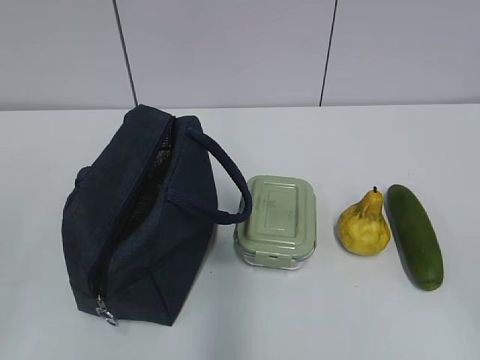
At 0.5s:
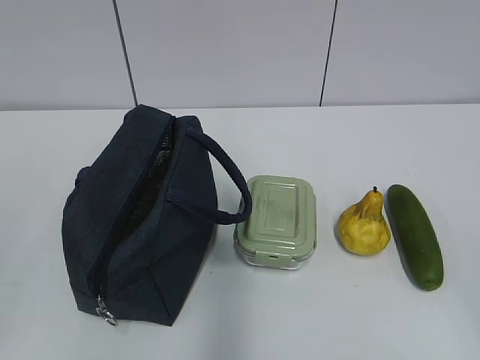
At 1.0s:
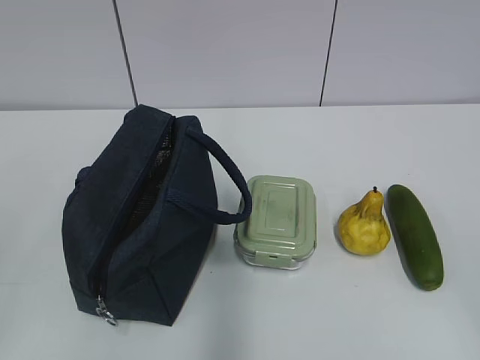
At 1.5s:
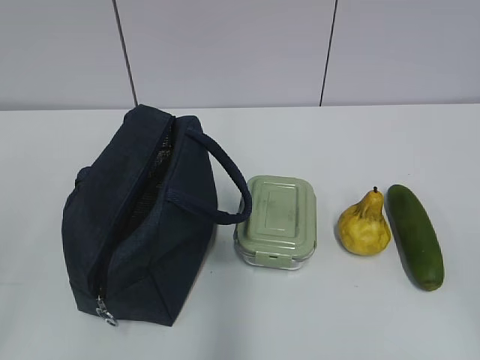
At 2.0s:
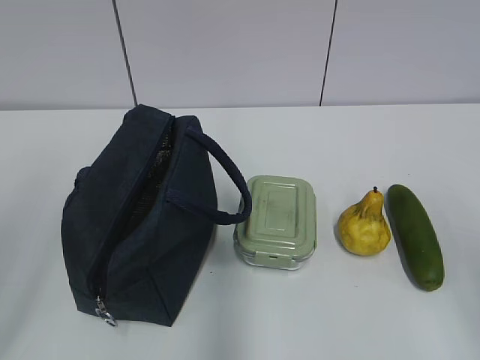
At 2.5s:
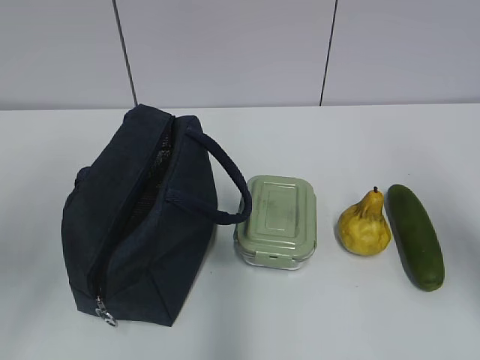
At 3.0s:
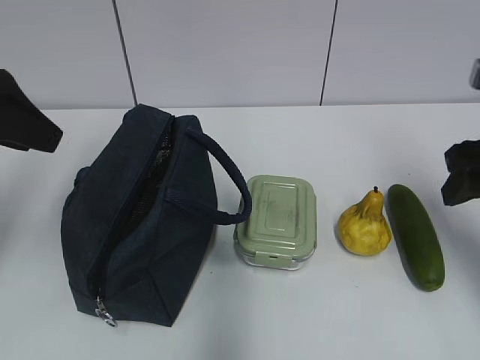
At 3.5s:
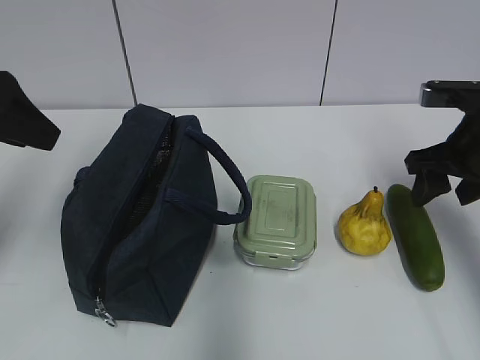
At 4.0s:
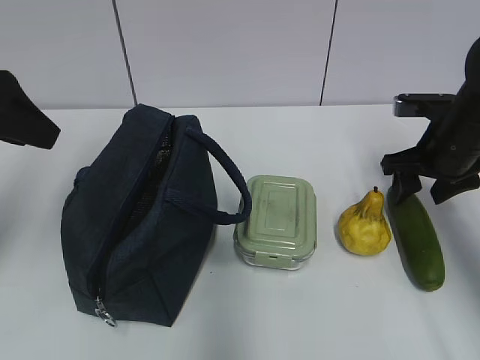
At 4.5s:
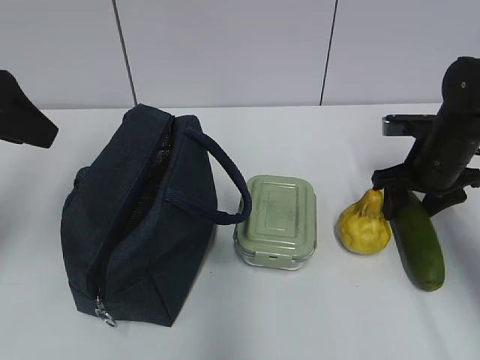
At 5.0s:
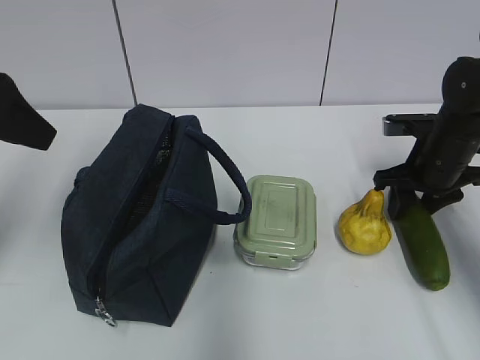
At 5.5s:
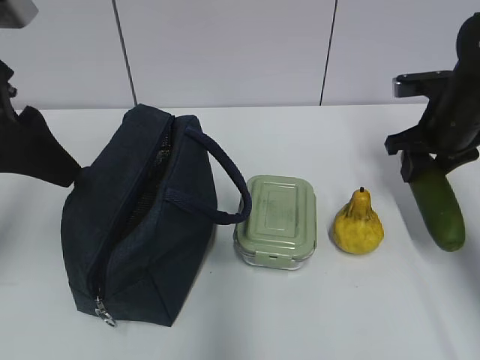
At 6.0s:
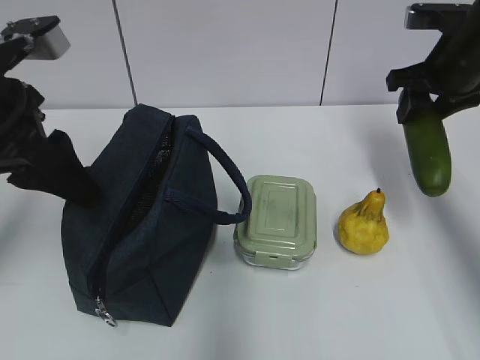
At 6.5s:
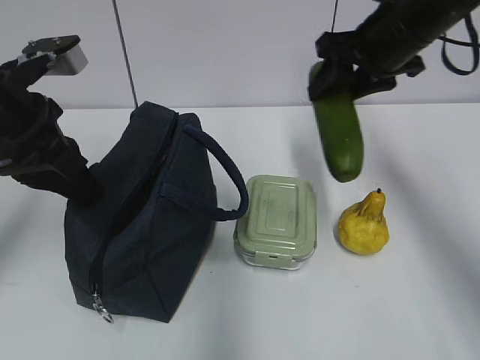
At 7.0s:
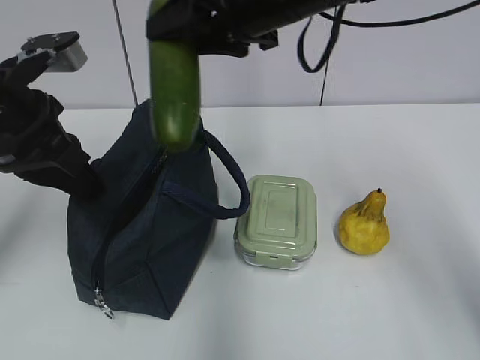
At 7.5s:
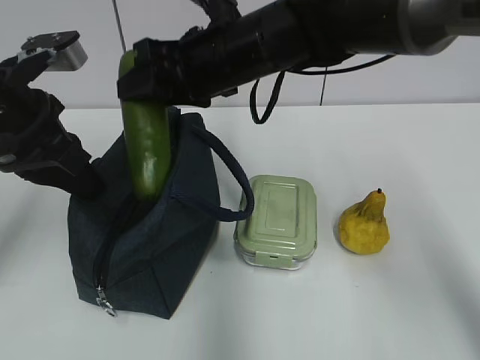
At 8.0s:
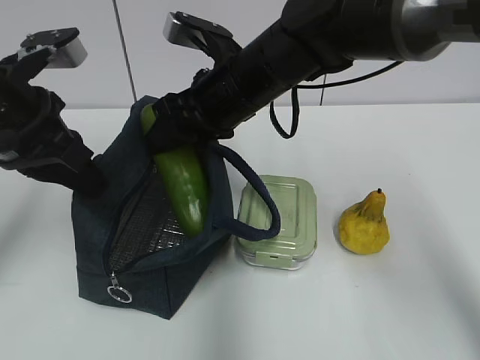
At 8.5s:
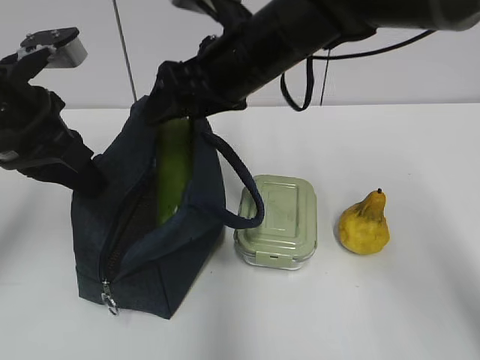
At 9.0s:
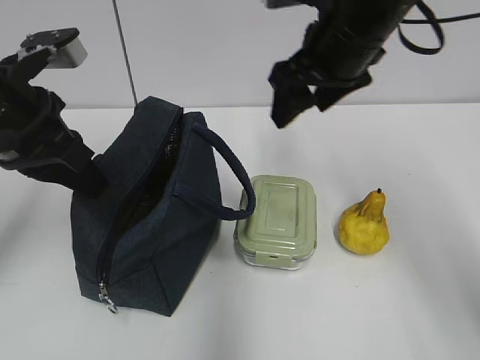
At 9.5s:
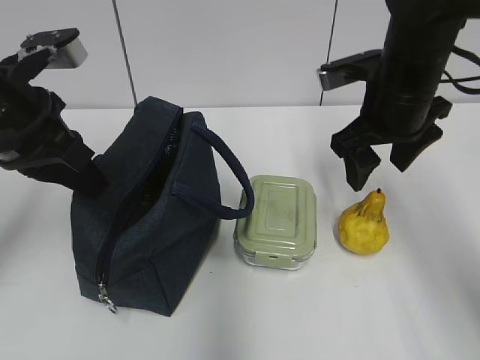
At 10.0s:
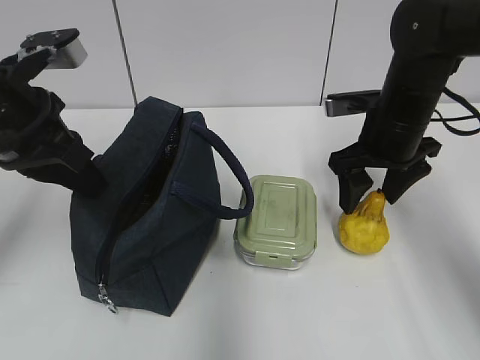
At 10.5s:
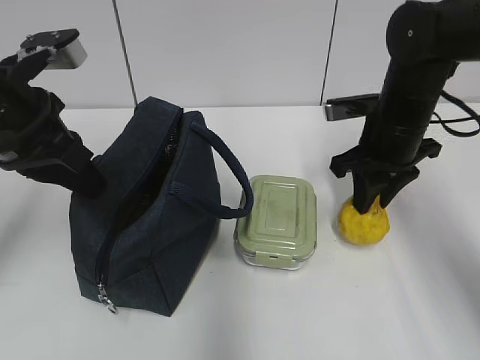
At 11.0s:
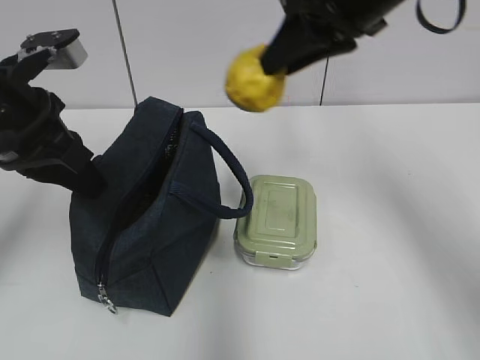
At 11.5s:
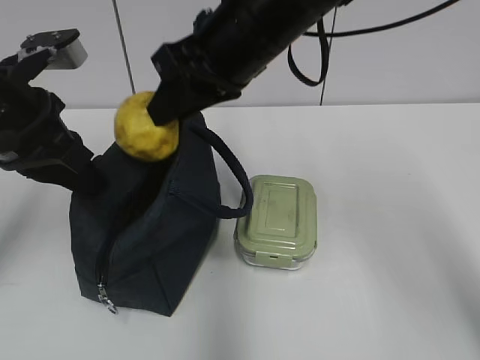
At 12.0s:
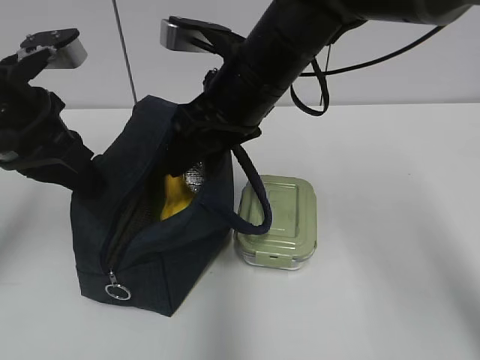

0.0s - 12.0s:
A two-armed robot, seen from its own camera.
Step, 0.0s - 5.0s: Grab the cucumber with your right hand.
Step, 5.5s - 7.0s: Grab the lunch bag with your left hand.
Step, 8.0s - 8.5s: Place it into the bag with your right hand.
Step, 9.0s - 10.0s: Grab the pear with your right hand.
Step, 10.5s - 12.0s: Place it into the bag with your right hand.
2.0s - 4.0s: The right gripper moves forward and downward, approximately 35 cm, while the left gripper is displaced forward by some 15 cm.
4.0s - 6.0s: The right gripper goes about 10 cm upward; the left gripper changes place by approximately 5 cm.
6.0s - 8.0s: The left gripper closes up. The right gripper heads to the left, covering about 25 cm.
8.0s - 10.0s: The right gripper travels to the right by roughly 15 cm.
10.0s - 12.0s: The right gripper moves to the left and upward, approximately 20 cm, and closes, then reopens.

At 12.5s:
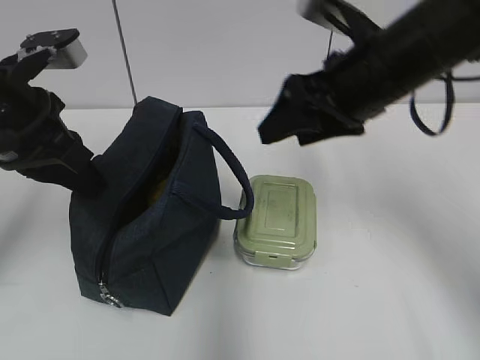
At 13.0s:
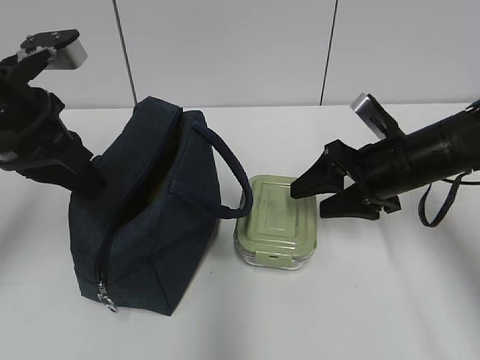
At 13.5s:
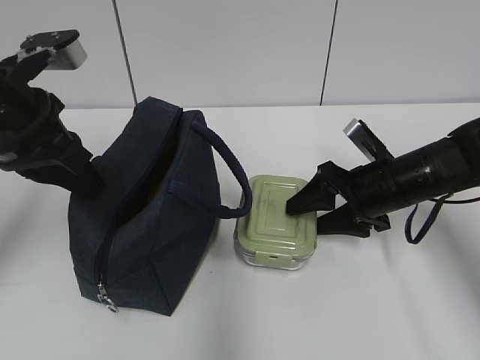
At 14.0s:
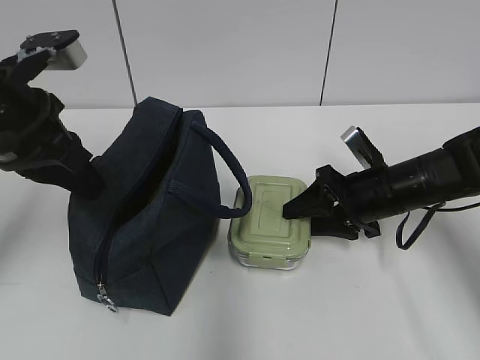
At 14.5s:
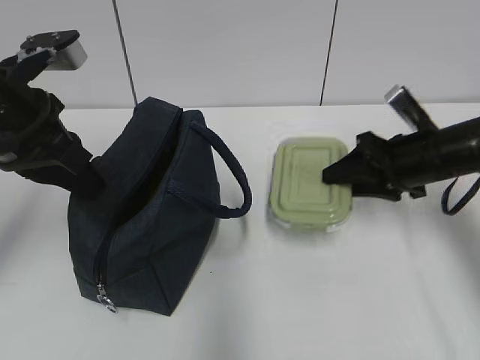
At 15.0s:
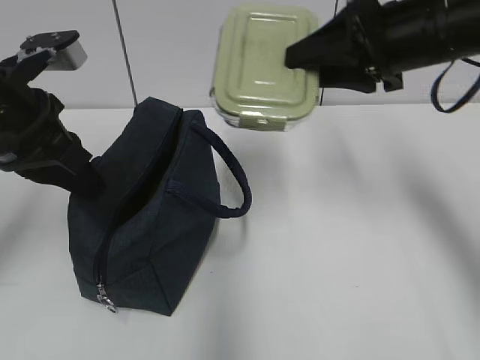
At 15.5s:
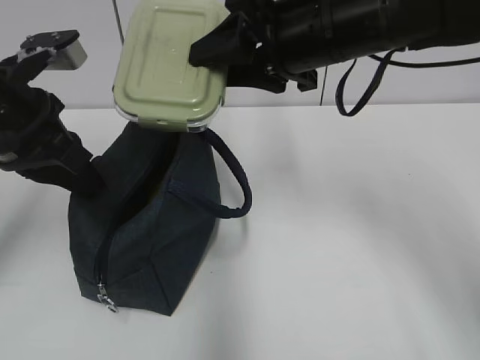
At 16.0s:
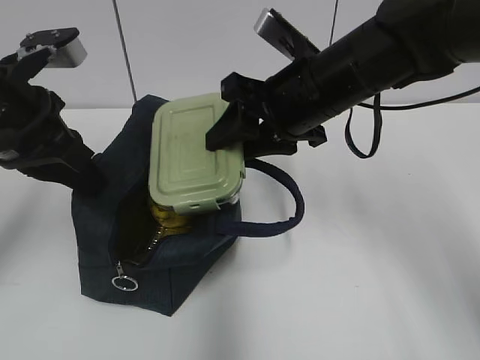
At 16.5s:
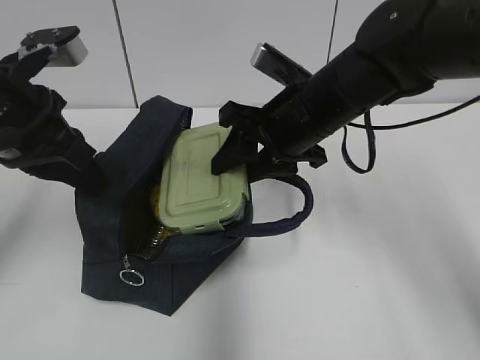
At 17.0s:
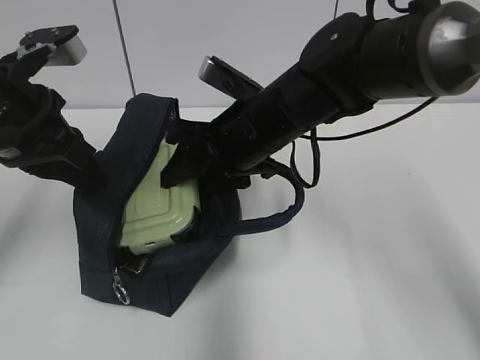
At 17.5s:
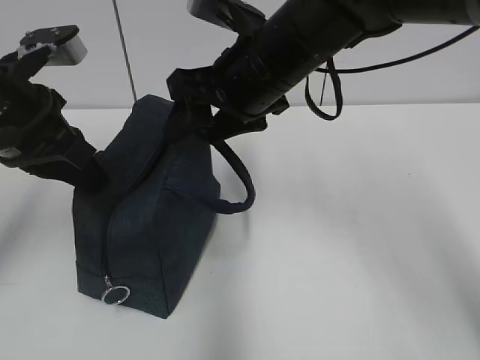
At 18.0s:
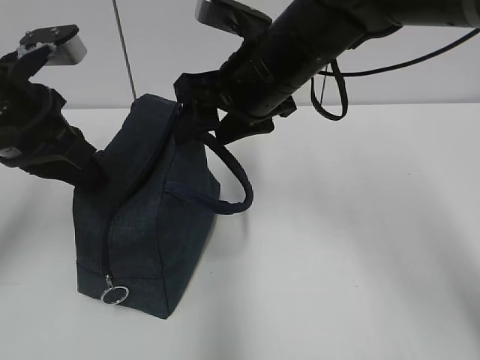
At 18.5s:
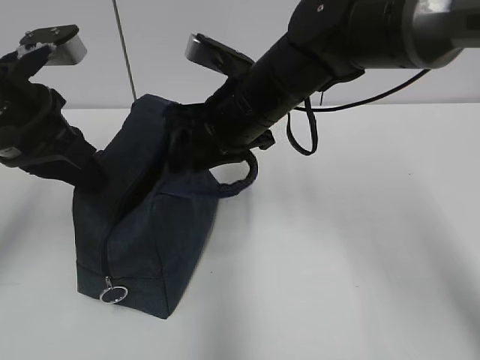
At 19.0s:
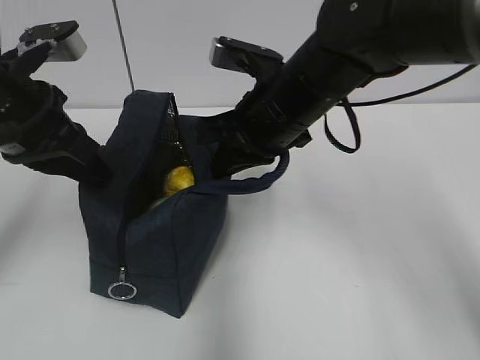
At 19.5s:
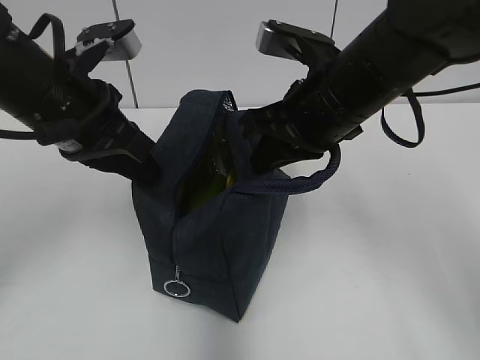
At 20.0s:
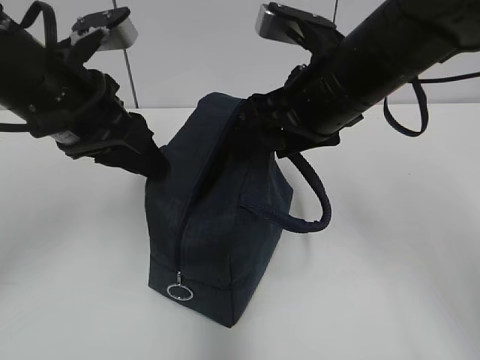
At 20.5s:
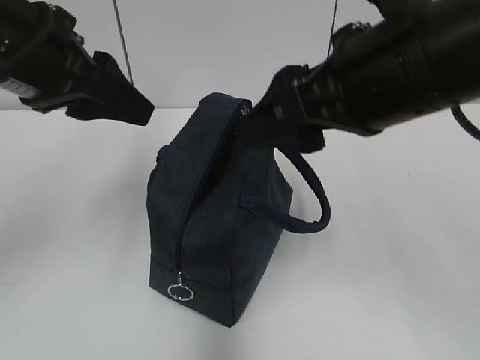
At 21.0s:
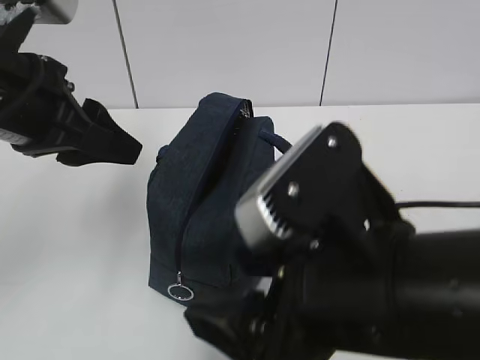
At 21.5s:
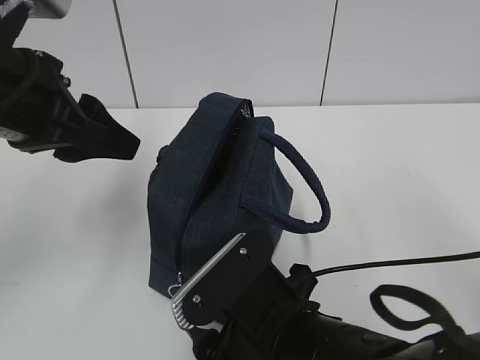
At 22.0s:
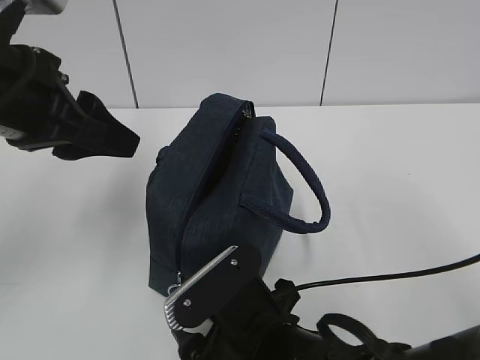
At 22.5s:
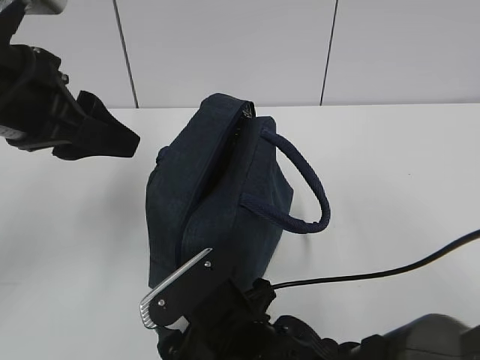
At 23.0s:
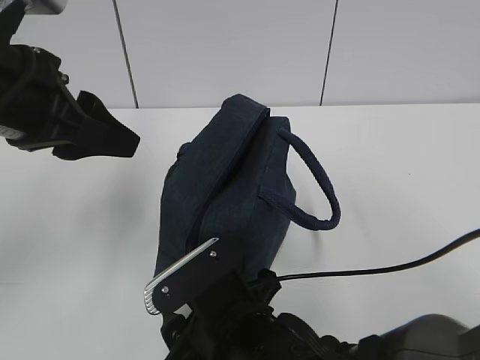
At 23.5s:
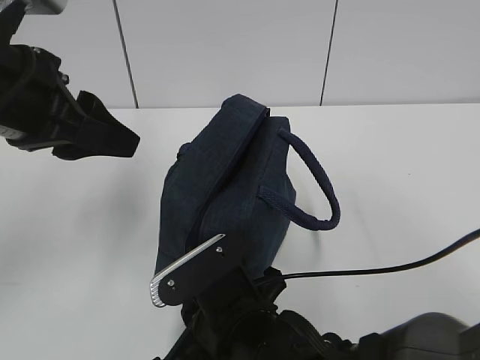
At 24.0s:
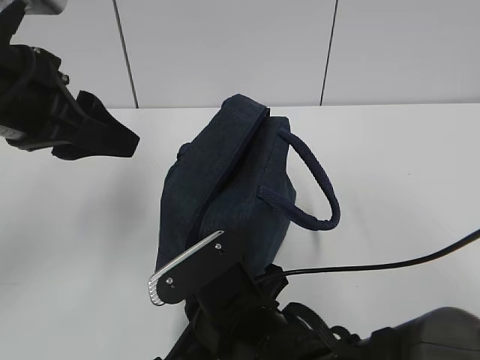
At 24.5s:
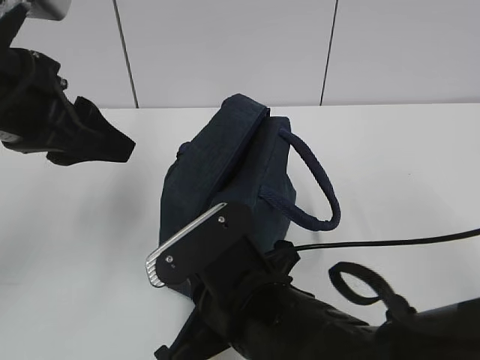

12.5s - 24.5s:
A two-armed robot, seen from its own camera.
Step, 12.5s - 14.0s: Grab the lunch box with your right hand.
Step, 17.5s - 18.5s: Grab the lunch bag with your right hand.
Step, 19.5s - 20.0s: Move the lunch bag to the right.
12.5s - 14.5s: The right gripper is displaced downward and to the right by approximately 10 cm.
14.5s - 16.5s: The right gripper goes approximately 15 cm to the left.
16.5s - 18.5s: The right gripper closes up.
18.5s - 20.5s: The right gripper is displaced backward, upward and to the right by some 20 cm, and opens; the left gripper travels upward by approximately 5 cm, and opens its fingers.
20.5s - 22.5s: The right gripper shifts some 25 cm downward and to the left.
22.5s - 24.5s: The right gripper heads upward, covering approximately 5 cm, and closes up.

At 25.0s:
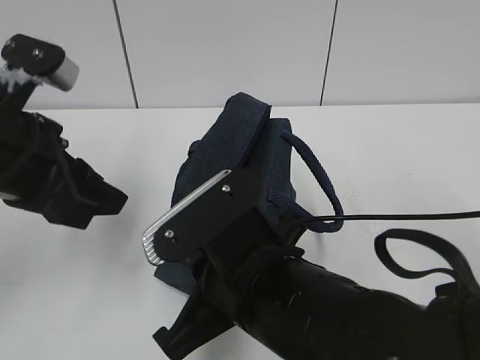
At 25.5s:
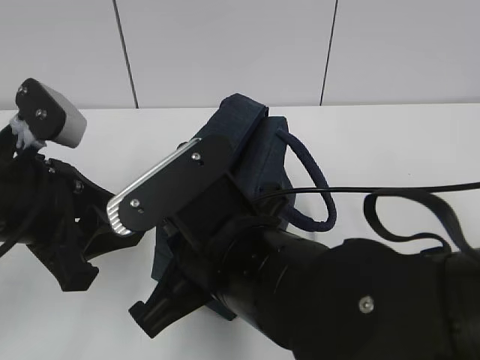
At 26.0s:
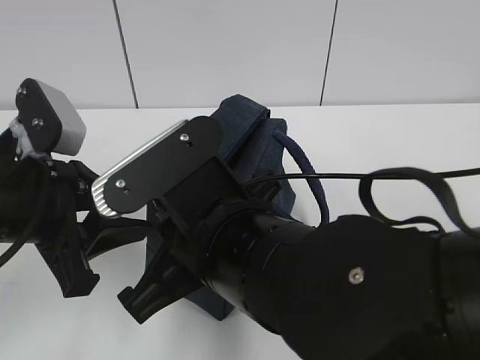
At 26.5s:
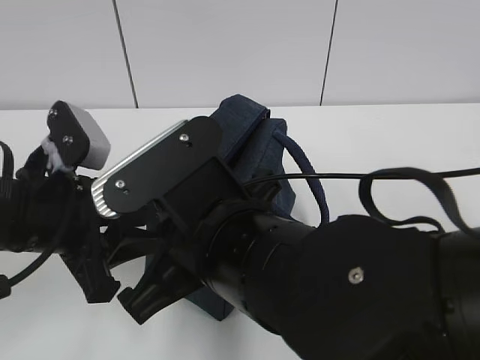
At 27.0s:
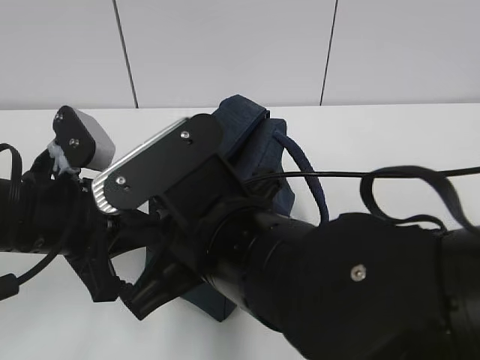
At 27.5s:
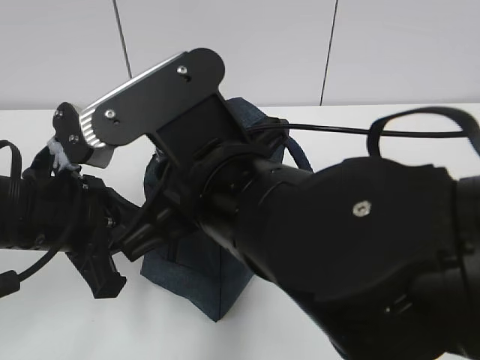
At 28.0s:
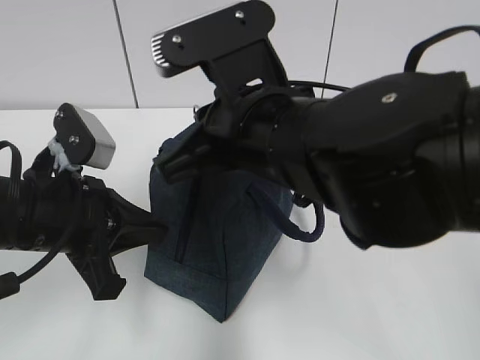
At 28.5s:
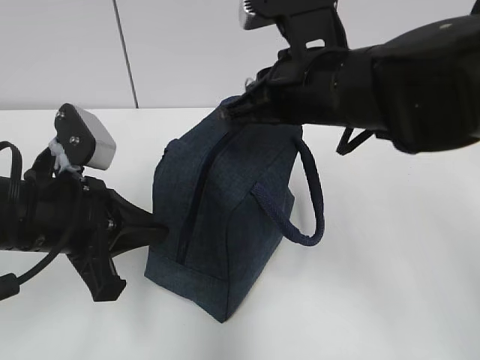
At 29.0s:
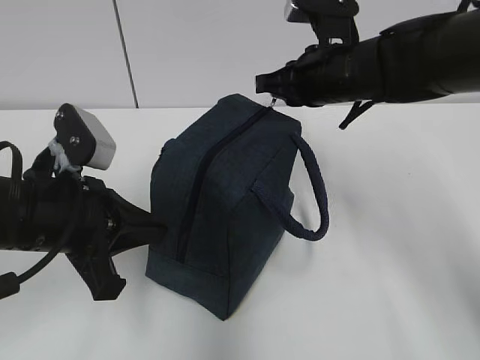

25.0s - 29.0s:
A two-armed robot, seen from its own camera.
25.0s - 27.0s: The left gripper moves downward, about 5 cm, and closes its fingers.
27.0s - 29.0s: The right gripper heads forward and to the right, covering approximately 25 cm.
